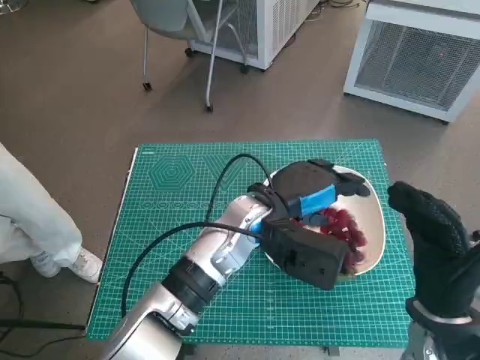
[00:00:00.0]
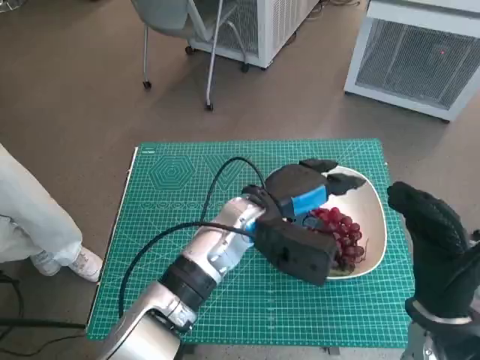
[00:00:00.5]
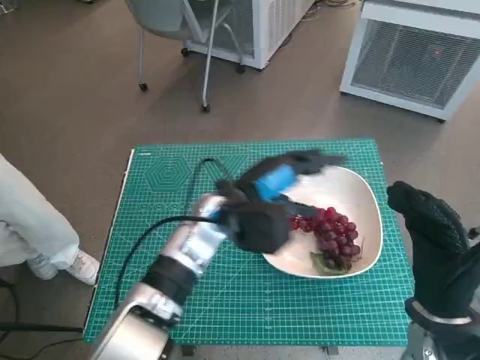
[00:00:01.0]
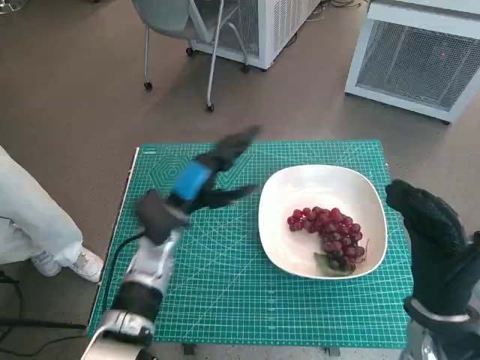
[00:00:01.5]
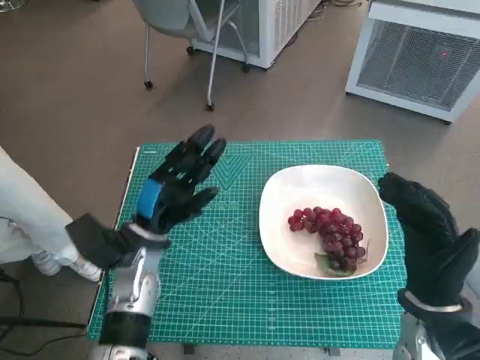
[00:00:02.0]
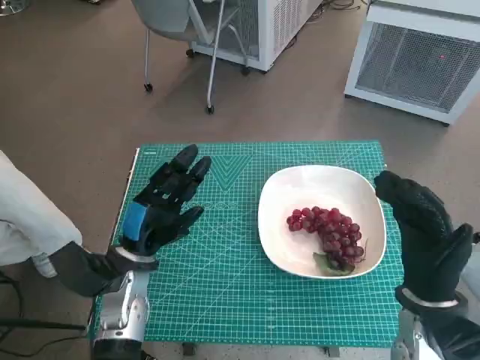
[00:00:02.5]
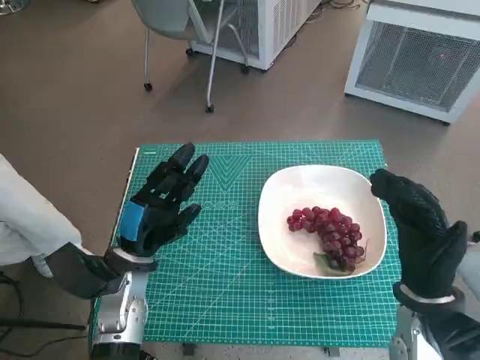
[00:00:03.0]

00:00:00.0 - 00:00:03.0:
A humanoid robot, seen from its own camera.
Task of the whole recording: Pick up the grapes and put them on the plate.
00:00:00.0 - 00:00:01.5: The left hand goes approximately 15 cm to the left.
00:00:01.5 - 00:00:03.0: The left hand travels backward and to the left by roughly 10 cm.
